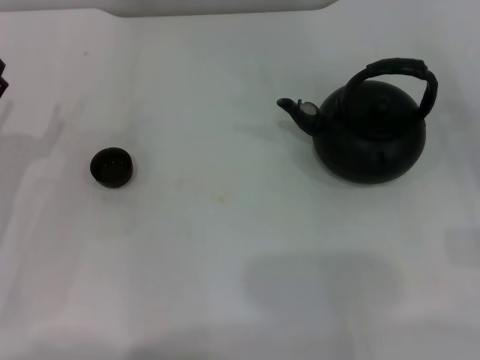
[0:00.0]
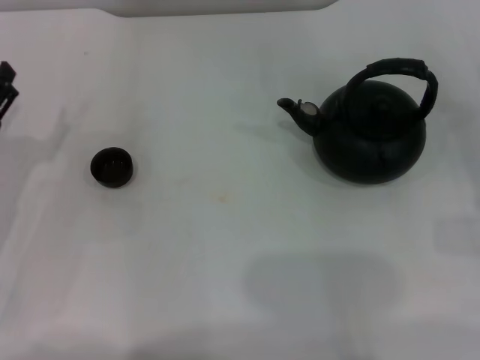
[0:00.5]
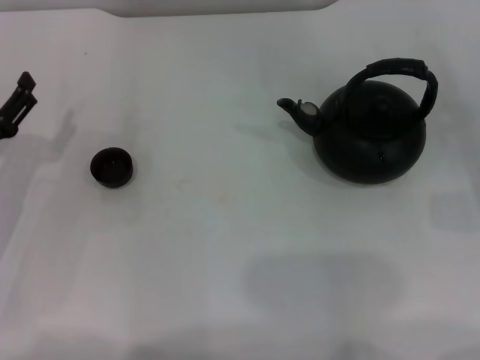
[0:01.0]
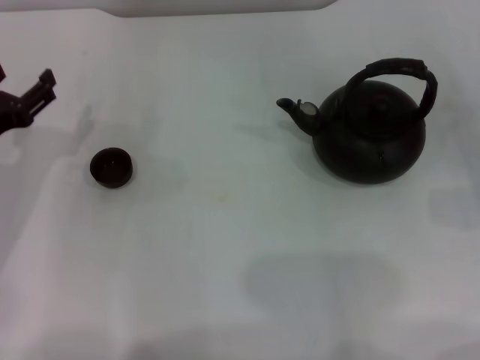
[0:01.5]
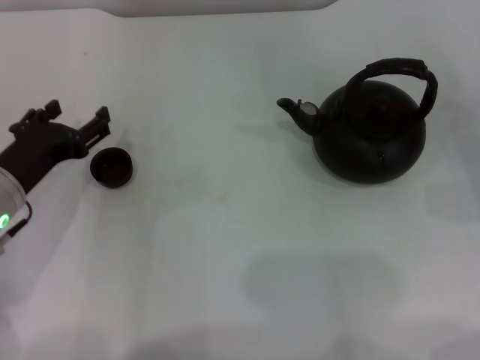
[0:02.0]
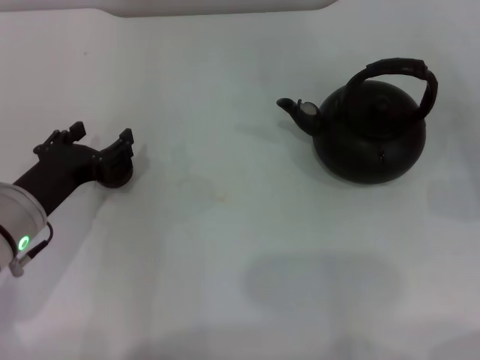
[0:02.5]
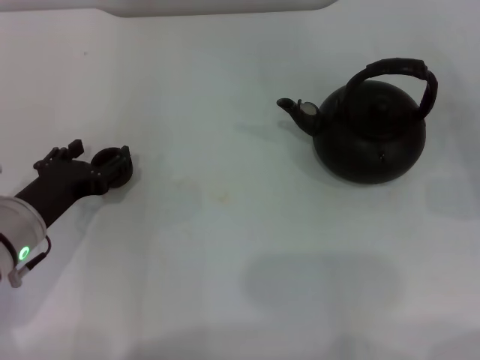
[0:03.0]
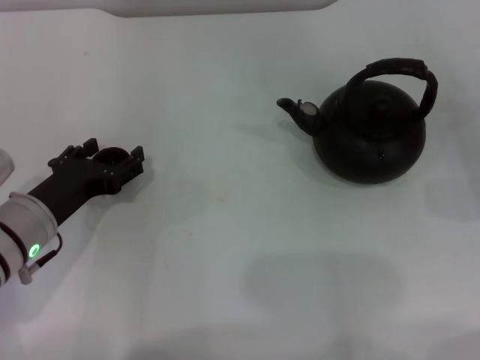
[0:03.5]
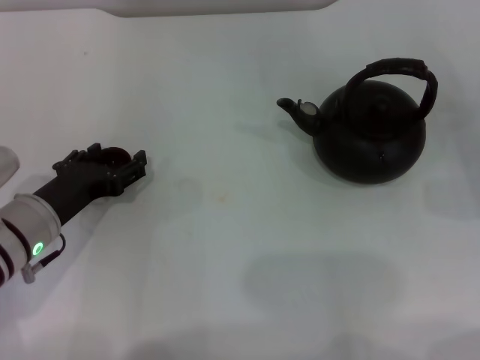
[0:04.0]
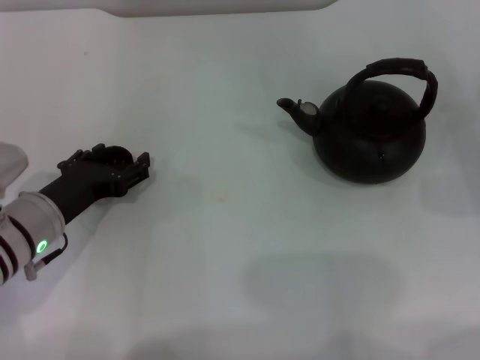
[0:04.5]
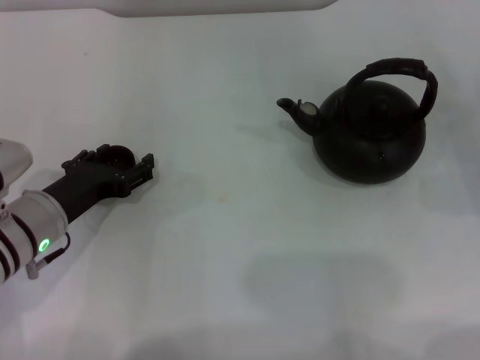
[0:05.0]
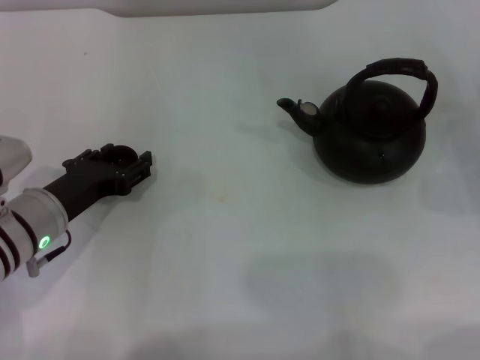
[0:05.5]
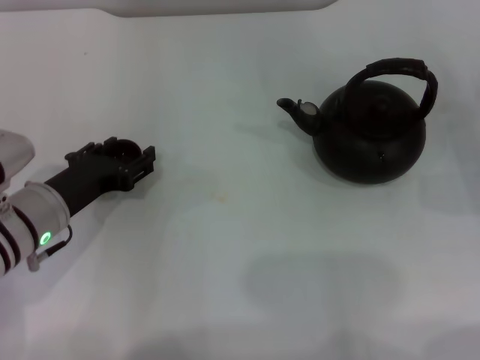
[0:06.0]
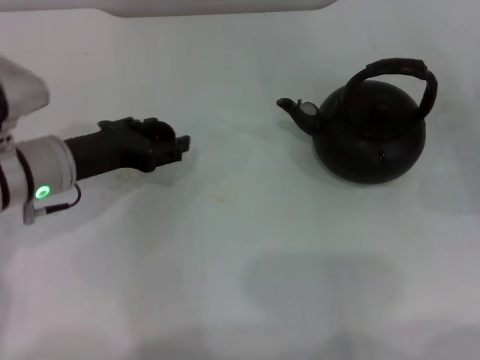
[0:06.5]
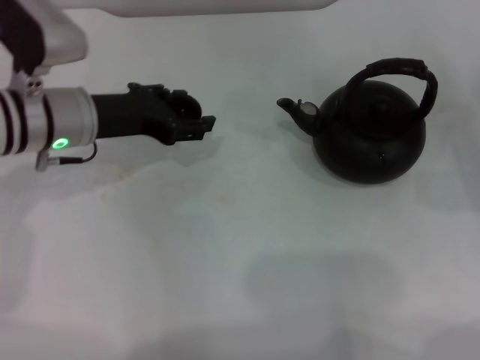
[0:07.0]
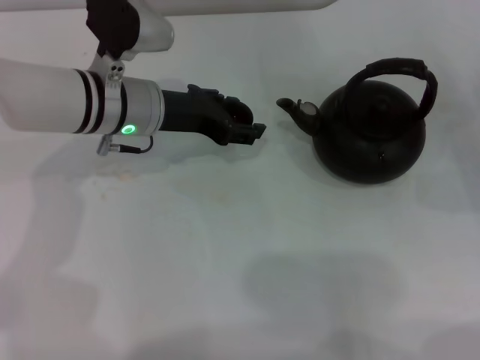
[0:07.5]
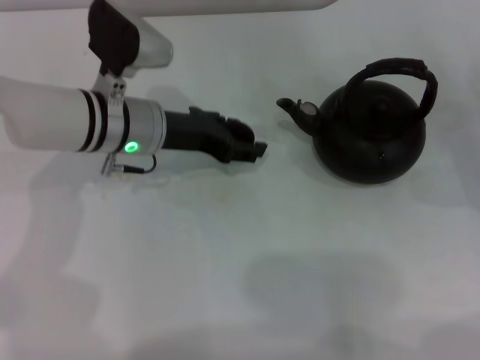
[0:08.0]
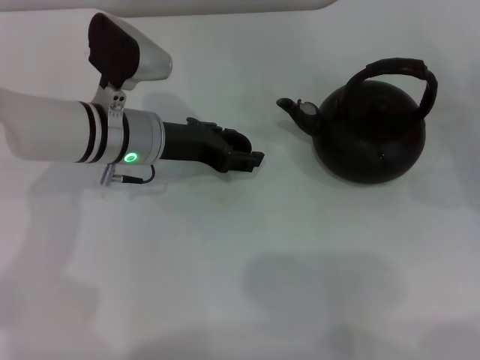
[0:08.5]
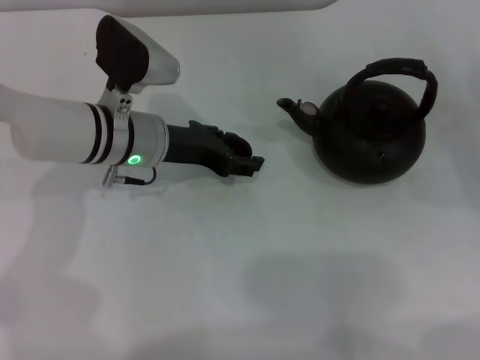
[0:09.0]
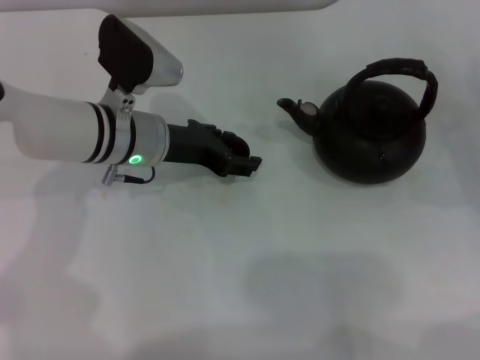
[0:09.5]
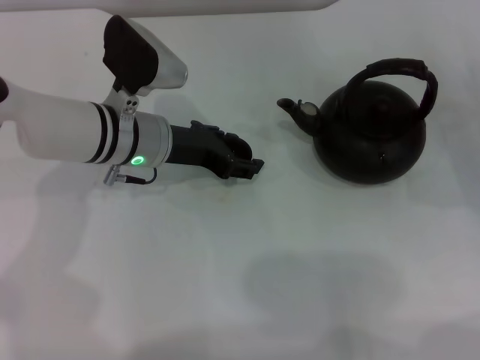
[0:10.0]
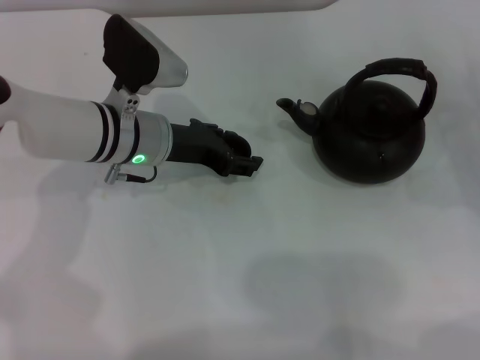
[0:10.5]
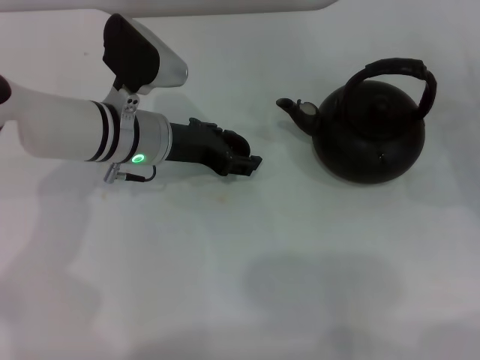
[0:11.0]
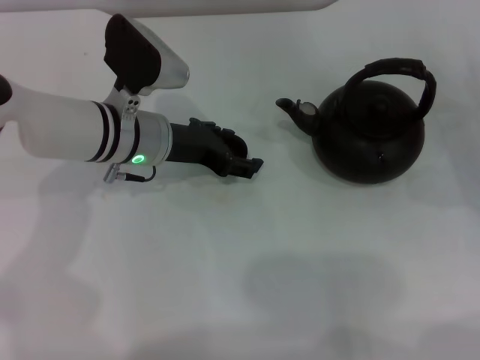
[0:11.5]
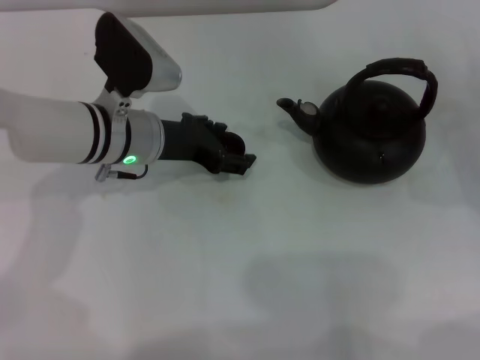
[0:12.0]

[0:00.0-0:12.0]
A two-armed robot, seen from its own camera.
Task of the whole recording: Grasp the handle of the teapot with one hand and pour tea into the teacup.
Step, 0:00.0 to 0:06.0: Pick up the teacup with the left gripper.
0:00.0 to 0:02.0: The left gripper shifts roughly 5 cm to the right.
0:02.0 to 0:04.0: There are only small adjustments of the grippers.
0:04.0 to 0:06.0: The left gripper closes its fingers.
0:06.0 to 0:08.0: The left gripper moves forward and to the right, roughly 15 cm.
0:08.0 to 0:10.0: The grippers stay close to where they were, moving slightly.
0:10.0 to 0:12.0: The left gripper opens its fingers.

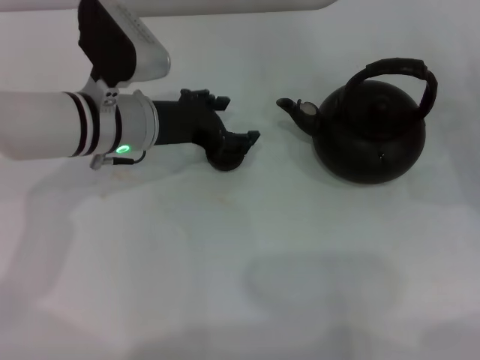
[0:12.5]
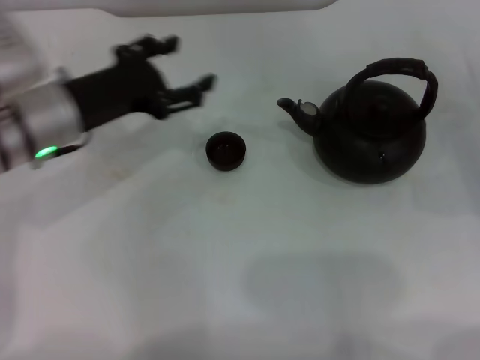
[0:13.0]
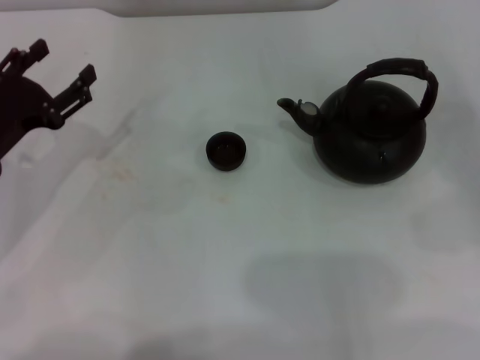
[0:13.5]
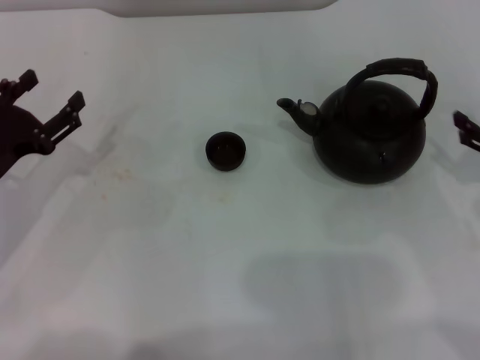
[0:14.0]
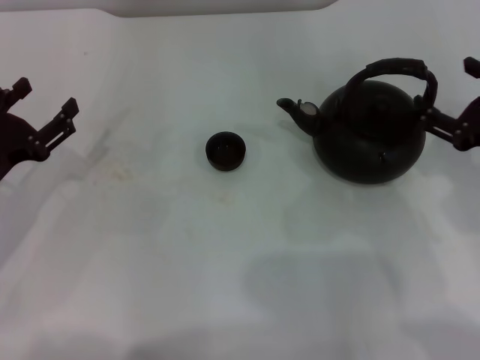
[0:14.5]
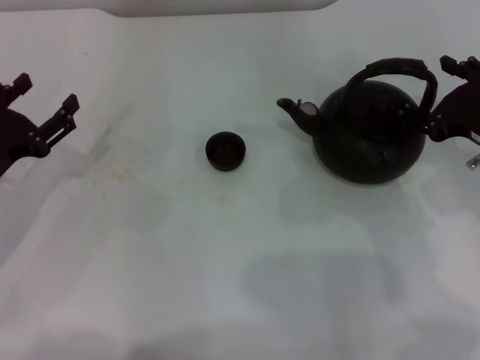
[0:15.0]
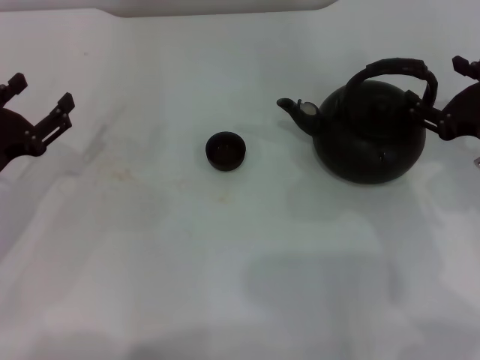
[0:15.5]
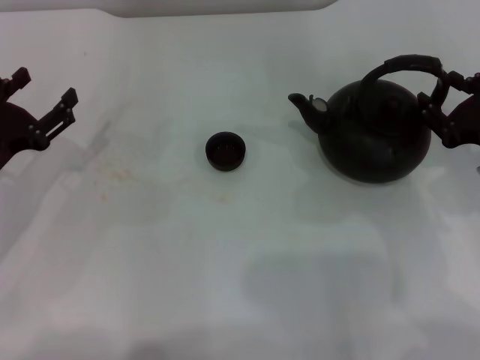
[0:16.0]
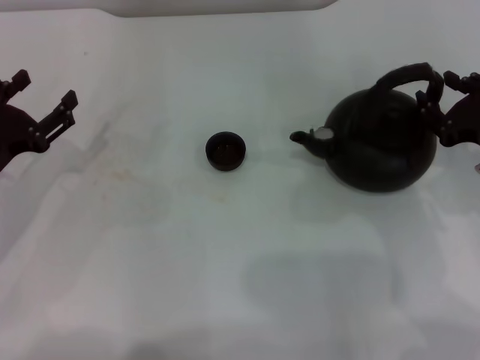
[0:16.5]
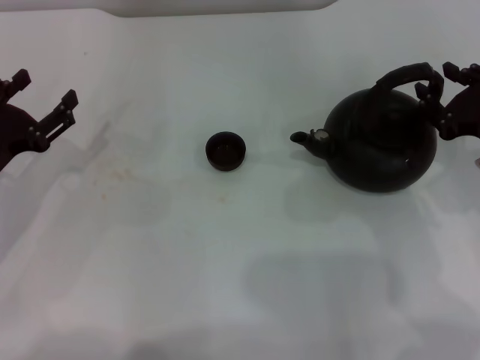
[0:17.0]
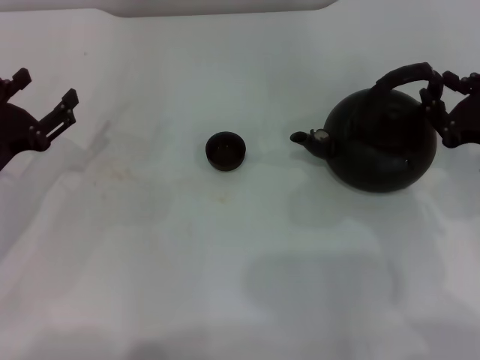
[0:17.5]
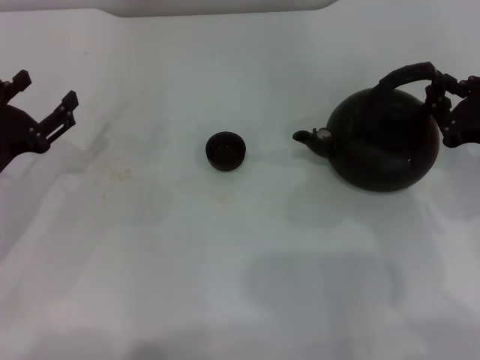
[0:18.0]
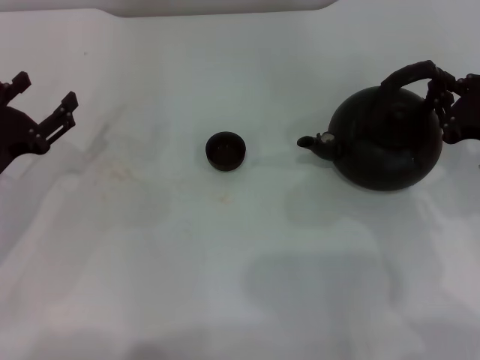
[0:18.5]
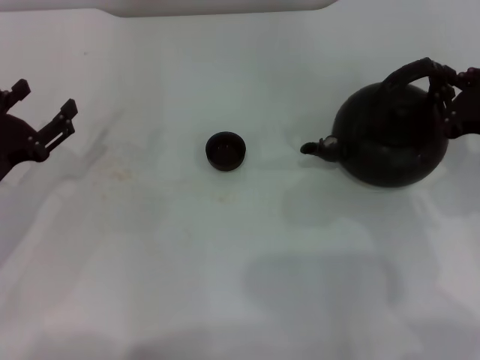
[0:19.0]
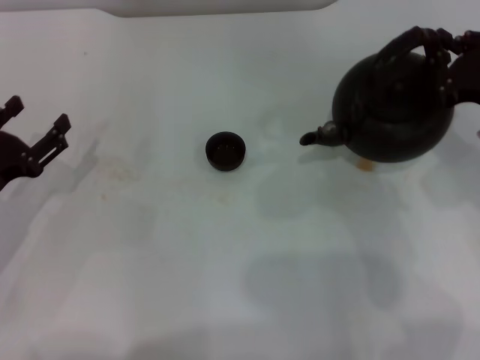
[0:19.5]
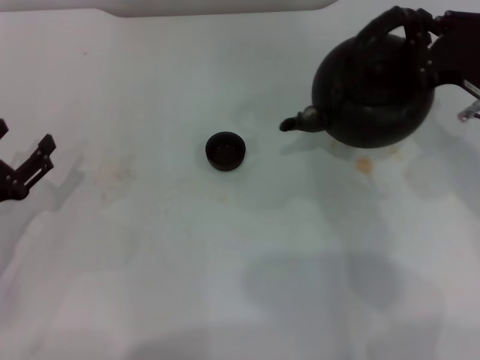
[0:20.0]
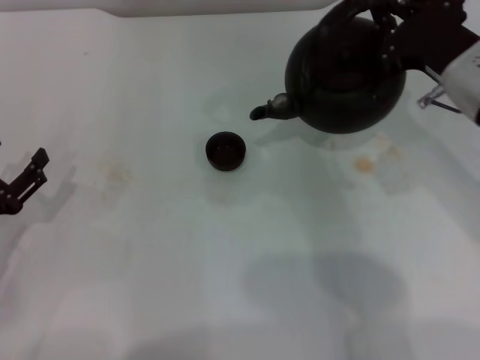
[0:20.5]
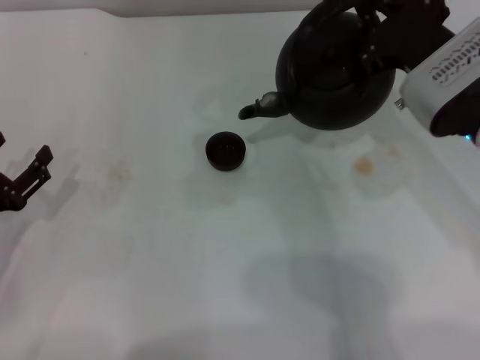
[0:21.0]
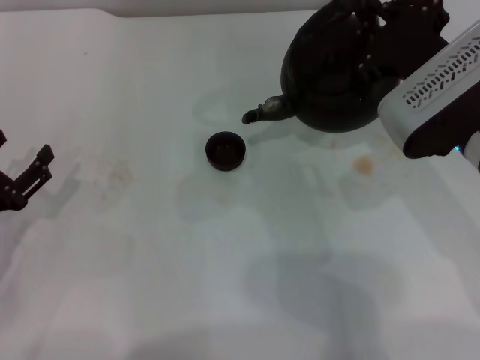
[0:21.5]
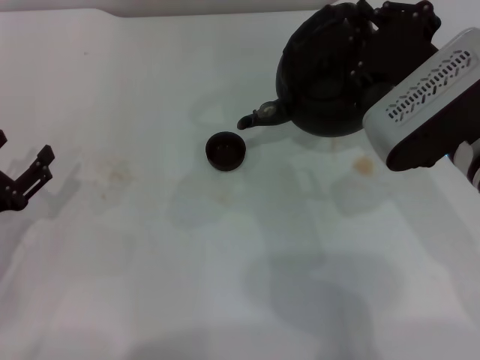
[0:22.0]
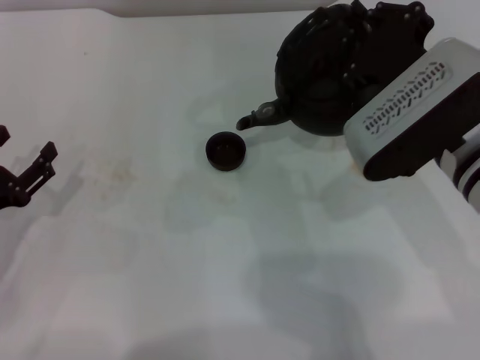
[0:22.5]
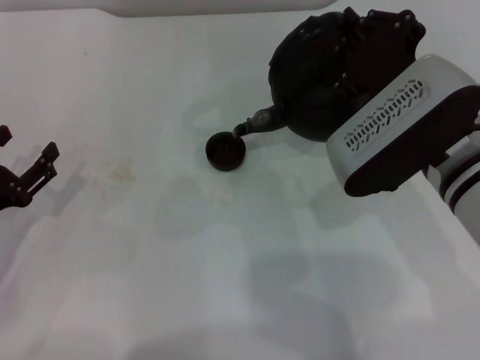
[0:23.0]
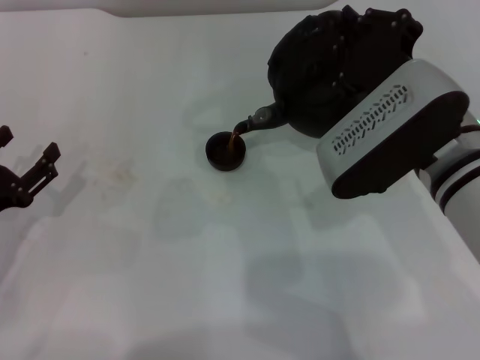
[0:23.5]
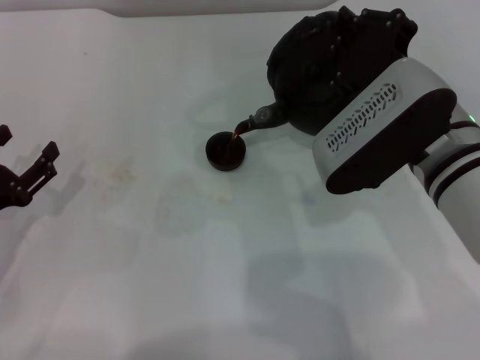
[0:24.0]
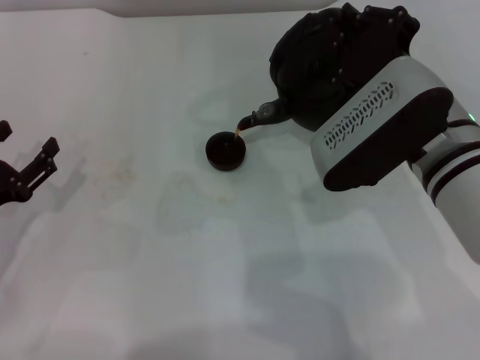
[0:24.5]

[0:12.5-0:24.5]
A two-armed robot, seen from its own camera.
Task of the whole recording: Grasp the handle of the teapot with one hand and pour tea into the teacup.
Step, 0:13.0 to 0:19.0: Pick up the teapot with the right gripper.
0:12.5 to 0:14.5: The right gripper moves to the left and upward, about 10 cm; the left gripper heads to the left and backward, covering roughly 20 cm.
0:14.5 to 0:16.5: The right gripper closes.
0:16.5 to 0:18.5: The right gripper closes.
0:18.5 to 0:20.5: The left gripper goes roughly 5 cm backward, while the right gripper is displaced to the left by some 5 cm.
0:20.5 to 0:22.5: The right gripper ends up about 5 cm from where it was.
0:22.5 to 0:24.5: The grippers make only small movements.

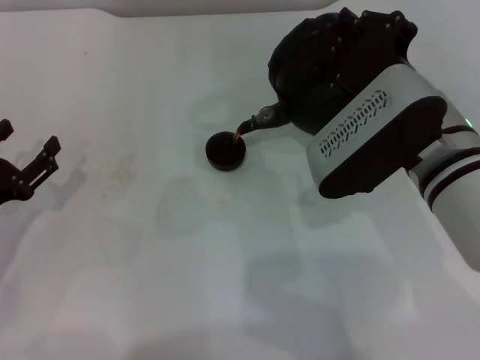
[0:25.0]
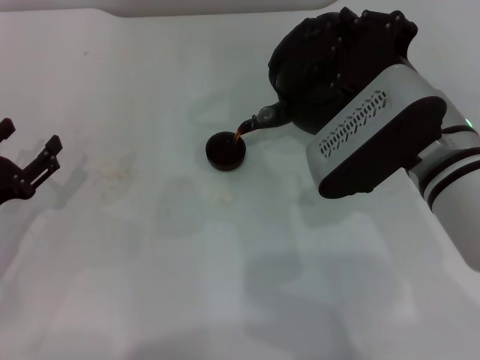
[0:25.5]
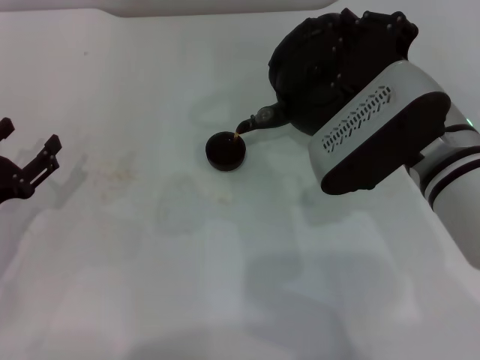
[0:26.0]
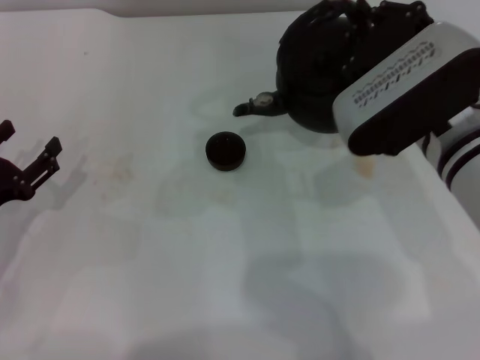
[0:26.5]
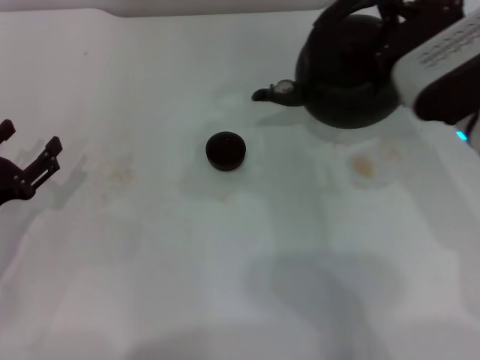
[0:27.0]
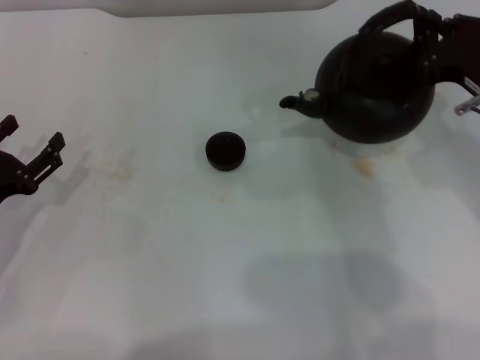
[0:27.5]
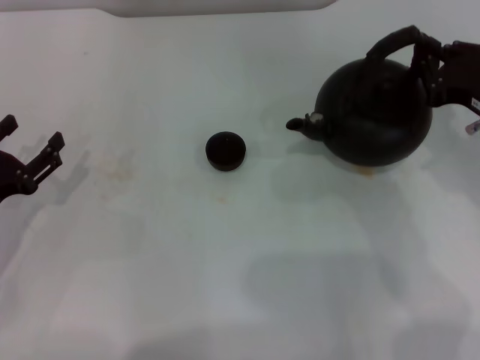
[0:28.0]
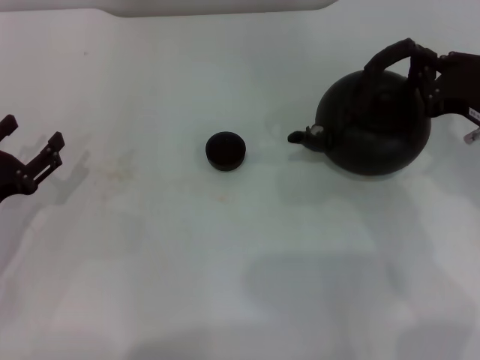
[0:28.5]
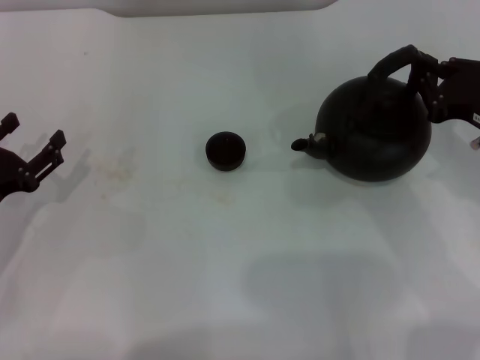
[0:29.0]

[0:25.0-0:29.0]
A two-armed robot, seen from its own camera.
Task of the whole recording: Grasp the handle of the teapot with one hand and pour tea into the teacup.
0:25.0 to 0:27.0: The right gripper ends up roughly 5 cm from where it was.
0:27.0 to 0:29.0: The right gripper moves to the right, about 10 cm.
